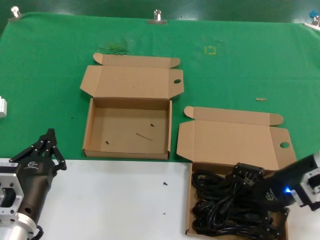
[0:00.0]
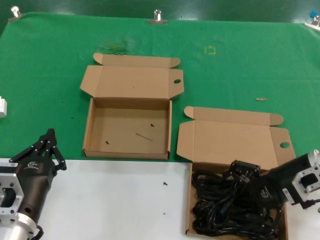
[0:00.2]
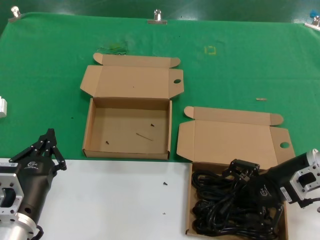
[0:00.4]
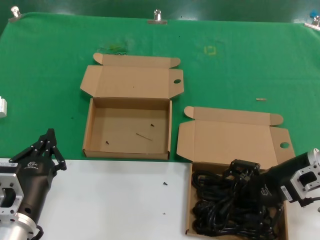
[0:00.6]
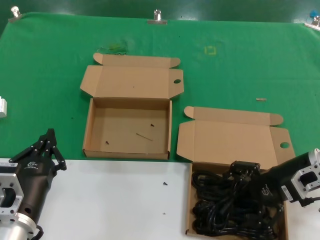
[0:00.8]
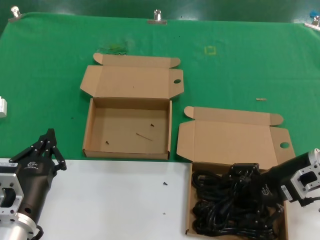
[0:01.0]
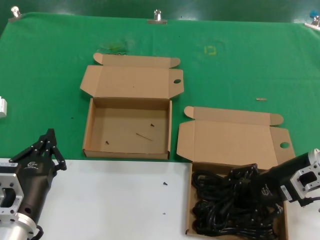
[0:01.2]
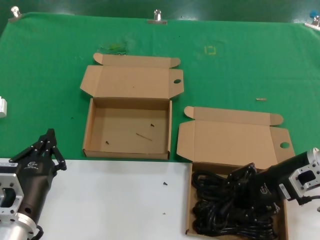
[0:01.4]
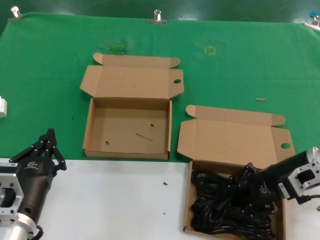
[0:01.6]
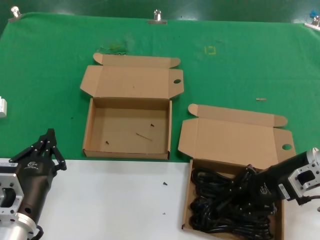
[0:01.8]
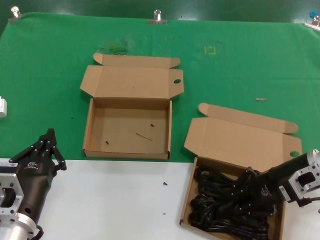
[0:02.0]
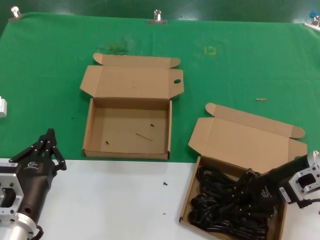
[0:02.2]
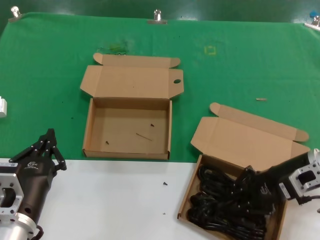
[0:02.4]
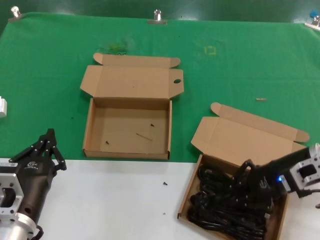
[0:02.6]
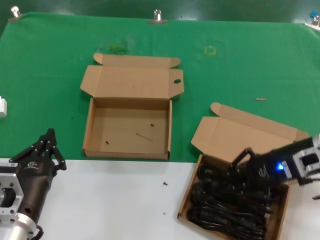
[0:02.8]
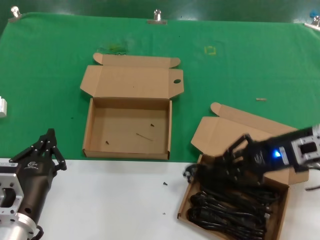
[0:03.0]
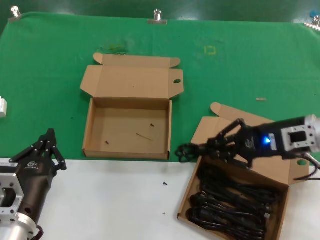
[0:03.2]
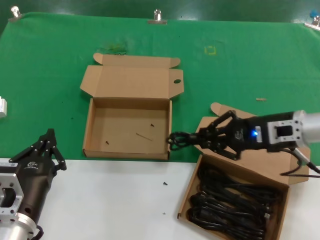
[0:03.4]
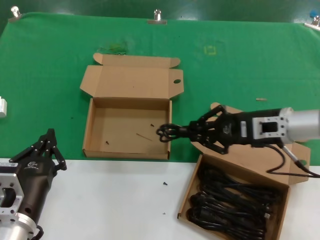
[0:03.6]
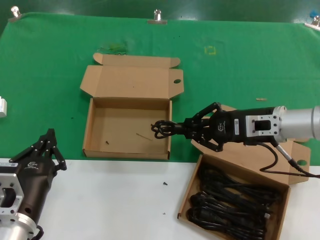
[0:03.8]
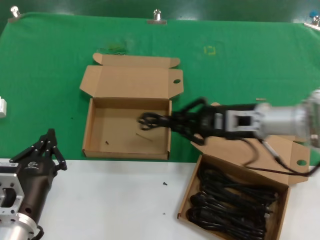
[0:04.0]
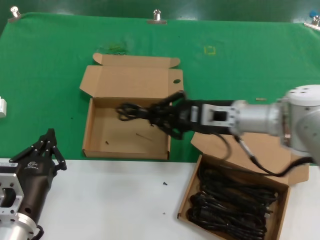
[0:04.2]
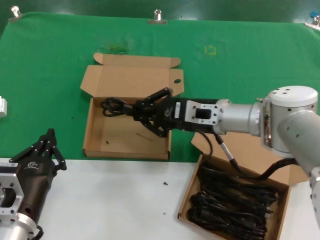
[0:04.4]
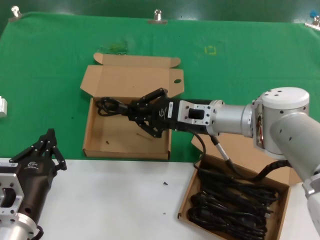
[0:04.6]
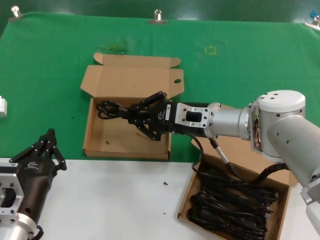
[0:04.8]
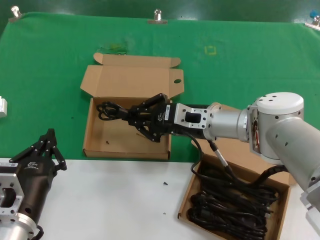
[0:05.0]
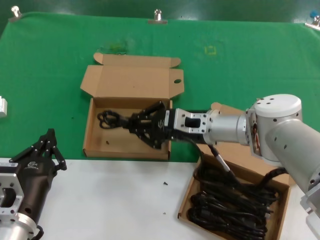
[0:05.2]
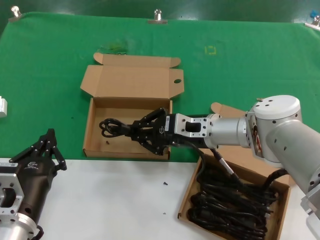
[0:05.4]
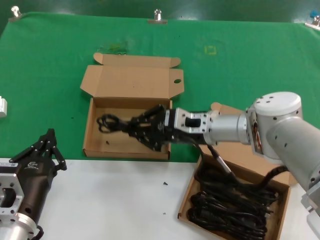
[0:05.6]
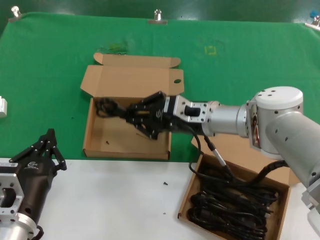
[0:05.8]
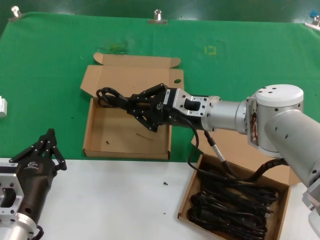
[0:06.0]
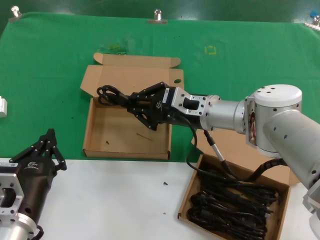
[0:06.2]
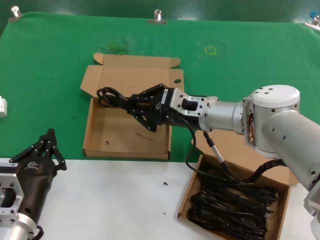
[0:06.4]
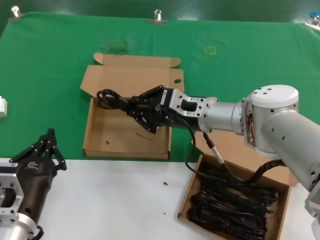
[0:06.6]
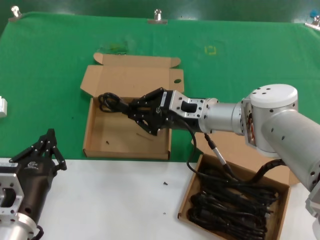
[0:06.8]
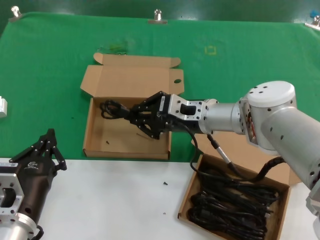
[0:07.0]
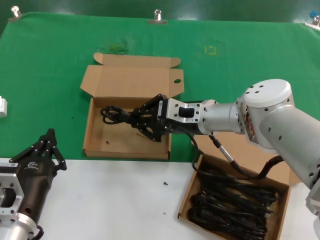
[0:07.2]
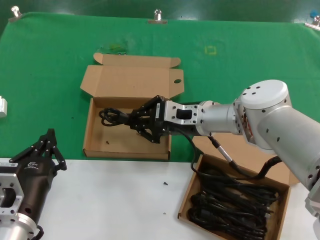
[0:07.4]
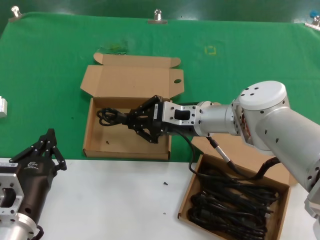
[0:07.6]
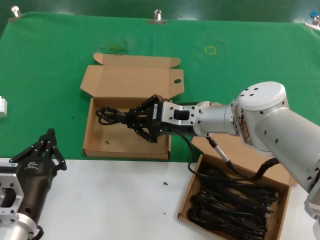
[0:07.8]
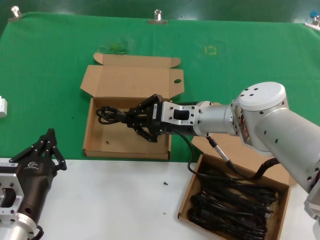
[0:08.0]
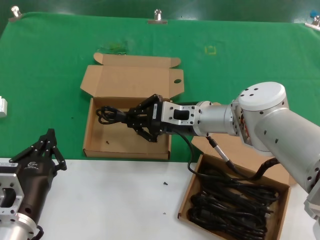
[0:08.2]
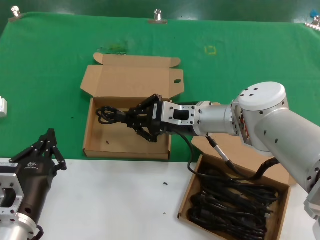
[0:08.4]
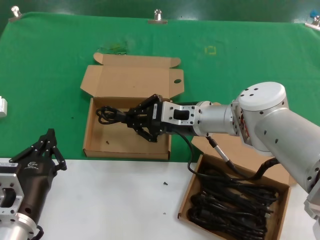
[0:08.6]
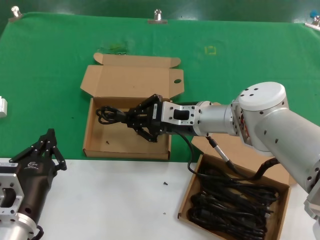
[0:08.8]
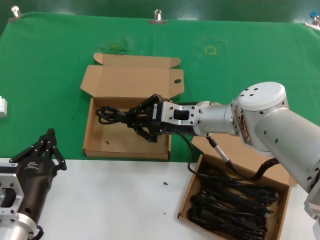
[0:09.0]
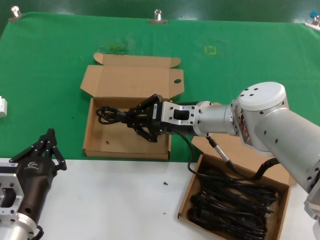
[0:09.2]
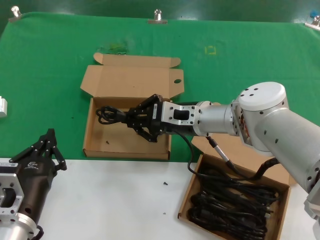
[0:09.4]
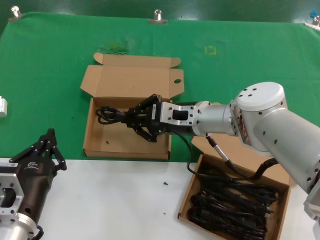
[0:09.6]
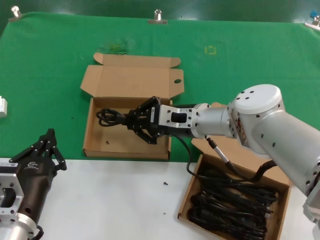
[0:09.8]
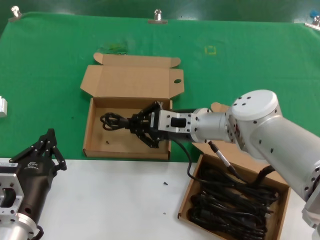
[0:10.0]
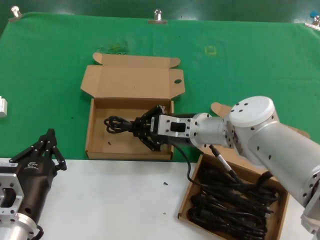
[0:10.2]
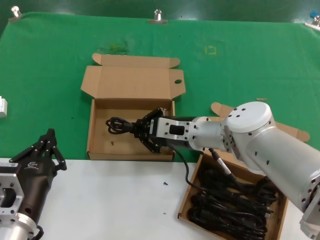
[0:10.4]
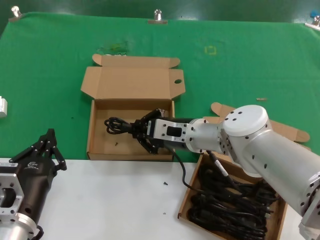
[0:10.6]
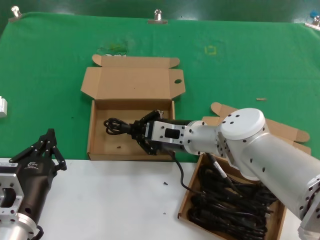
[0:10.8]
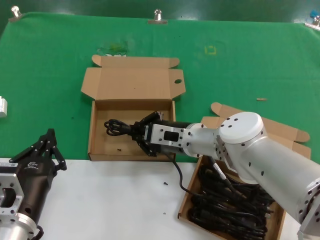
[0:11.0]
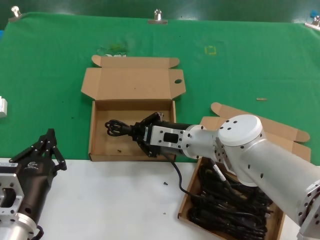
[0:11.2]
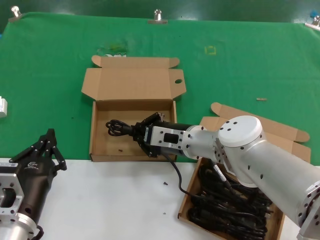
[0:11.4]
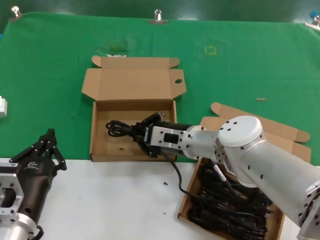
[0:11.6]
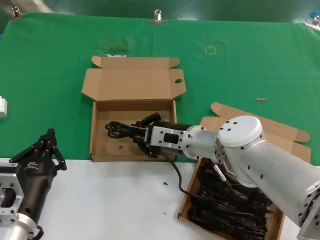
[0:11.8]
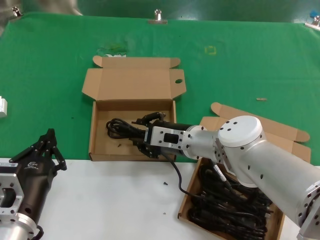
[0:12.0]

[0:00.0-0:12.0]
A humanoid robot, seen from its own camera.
Task of the whole recording: take the parts from the box containing them and put them into an empty box.
Step, 1.8 to 11.8 s: Place the data cable in the another box.
0.0 to 3.0 s: The hands stay close to where they were, moving slightly.
3.0 to 4.4 s: The right hand shifts roughly 20 cm to the left.
4.4 to 7.6 s: The hands make only small movements.
7.6 to 9.0 s: Both hands stay put.
9.0 to 10.4 s: The hands stay close to where they were, moving slightly.
10.4 to 12.0 s: The hands stay close to where they were, moving slightly.

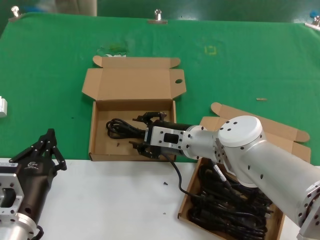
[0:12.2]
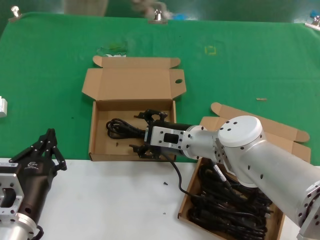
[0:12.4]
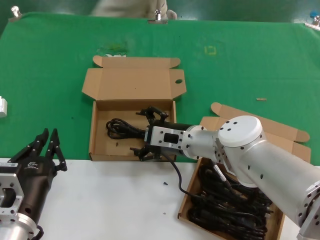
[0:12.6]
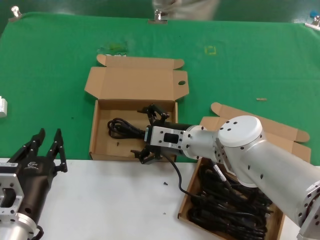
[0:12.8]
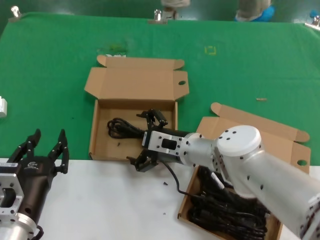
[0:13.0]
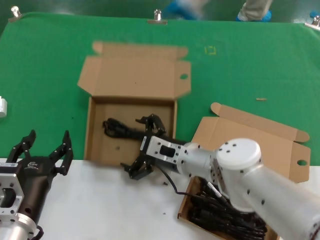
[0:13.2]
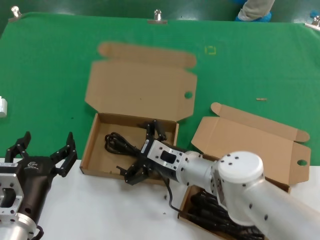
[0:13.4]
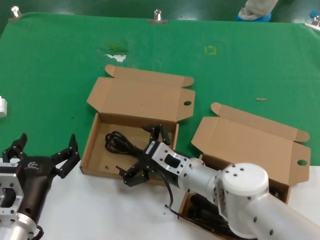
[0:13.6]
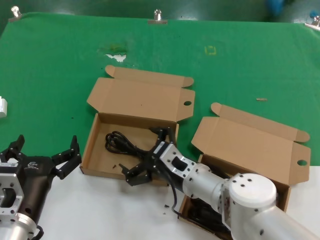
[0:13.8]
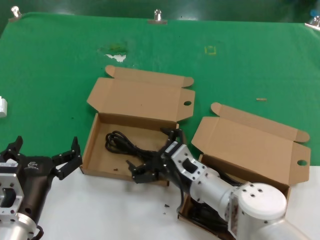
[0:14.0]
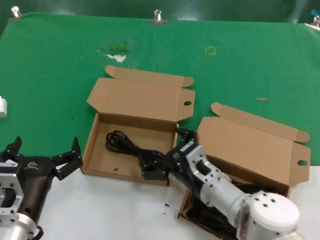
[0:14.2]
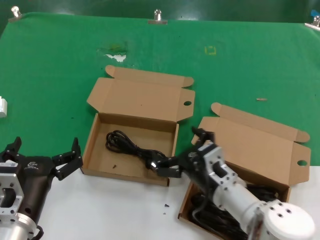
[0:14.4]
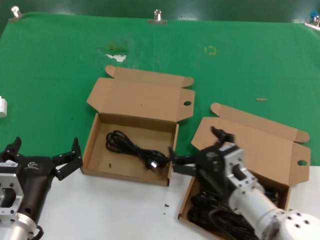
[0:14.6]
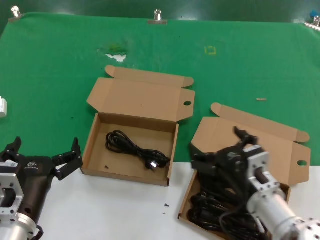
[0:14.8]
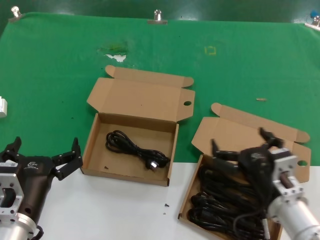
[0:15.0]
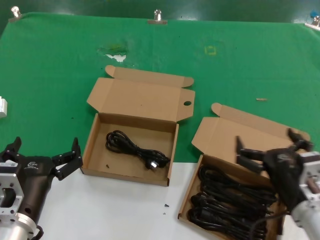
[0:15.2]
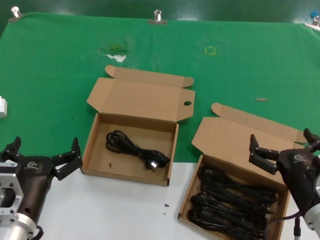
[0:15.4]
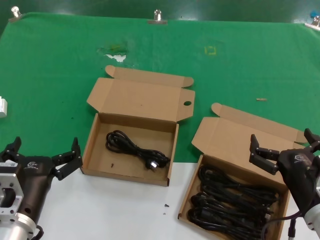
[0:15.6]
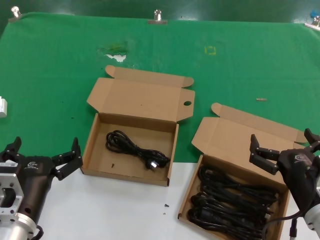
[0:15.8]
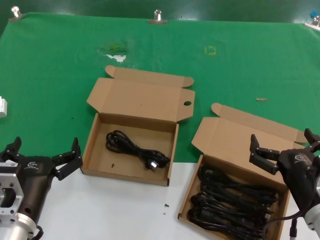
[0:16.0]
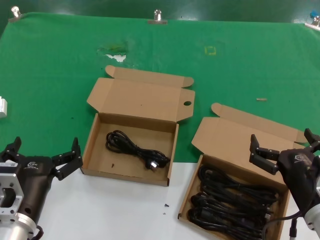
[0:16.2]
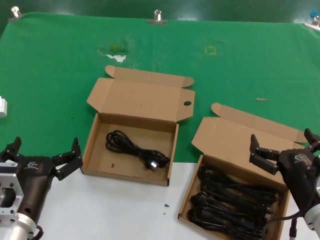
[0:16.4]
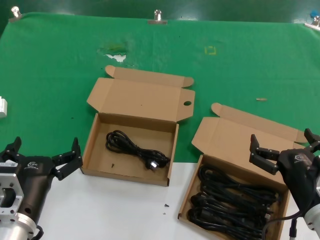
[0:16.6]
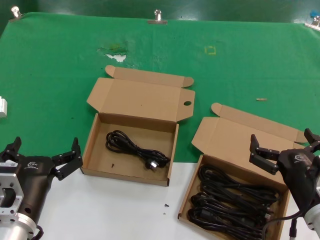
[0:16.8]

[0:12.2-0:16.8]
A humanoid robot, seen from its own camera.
Task of the whole recording: take the parts from the box containing them and put them into an empty box.
12.2 to 13.8 s: The right hand is displaced backward and downward by about 10 cm.
13.8 to 15.2 s: The right hand shifts roughly 20 cm to the right and backward.
15.2 to 16.8 s: There are only small adjustments of the hands.

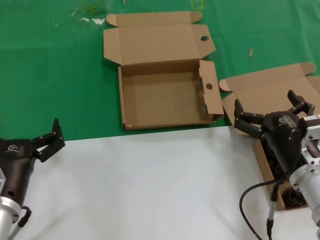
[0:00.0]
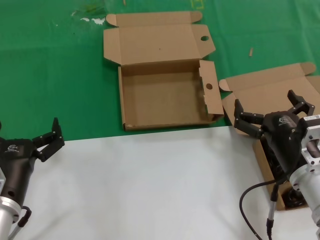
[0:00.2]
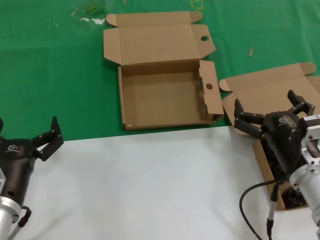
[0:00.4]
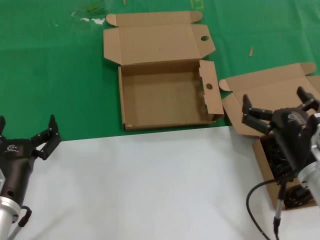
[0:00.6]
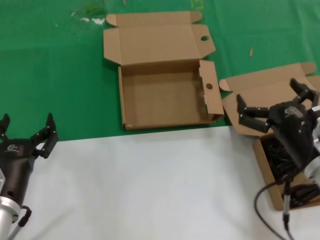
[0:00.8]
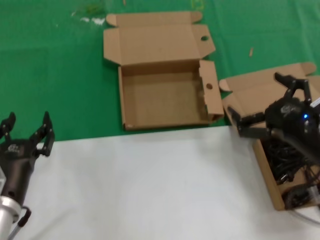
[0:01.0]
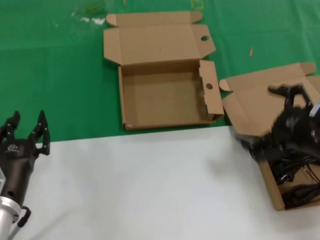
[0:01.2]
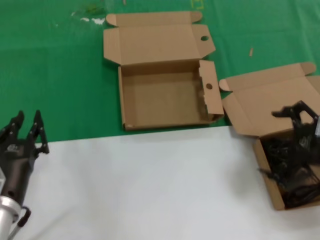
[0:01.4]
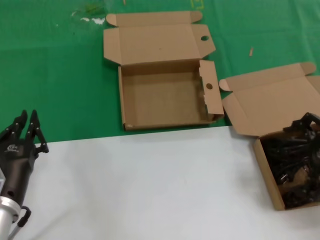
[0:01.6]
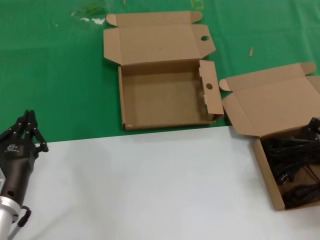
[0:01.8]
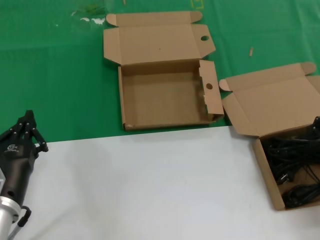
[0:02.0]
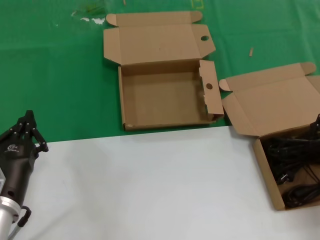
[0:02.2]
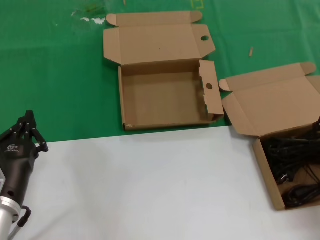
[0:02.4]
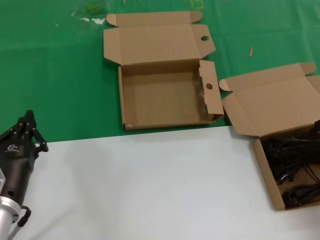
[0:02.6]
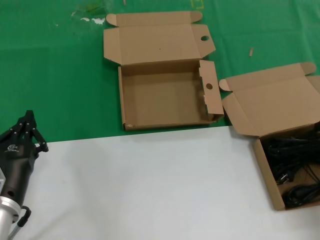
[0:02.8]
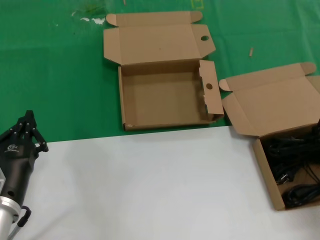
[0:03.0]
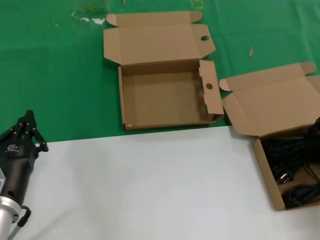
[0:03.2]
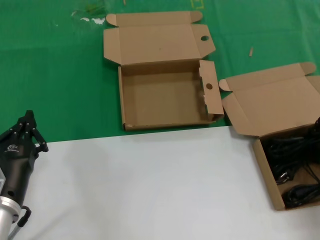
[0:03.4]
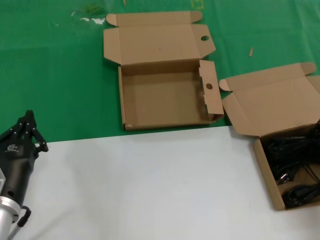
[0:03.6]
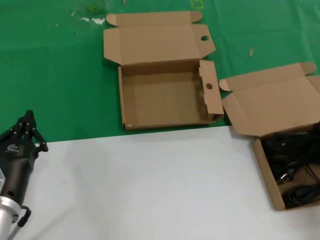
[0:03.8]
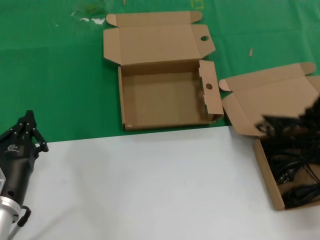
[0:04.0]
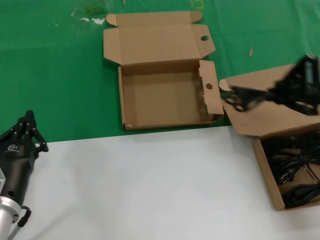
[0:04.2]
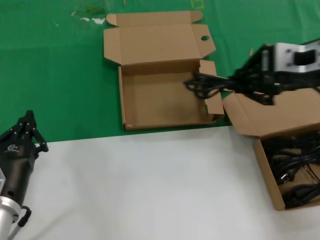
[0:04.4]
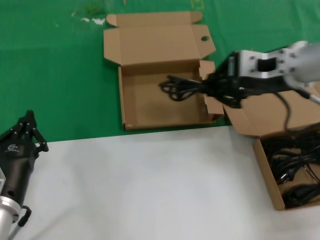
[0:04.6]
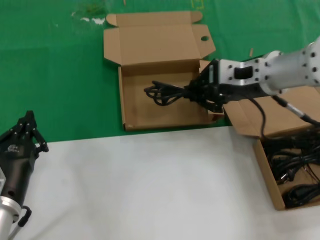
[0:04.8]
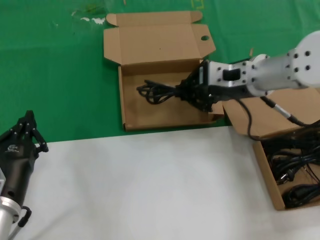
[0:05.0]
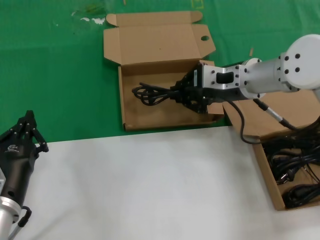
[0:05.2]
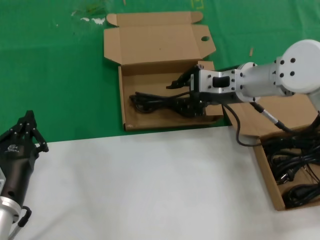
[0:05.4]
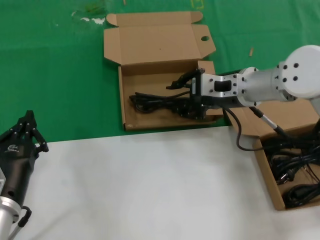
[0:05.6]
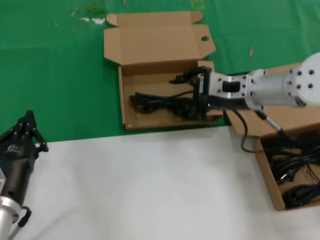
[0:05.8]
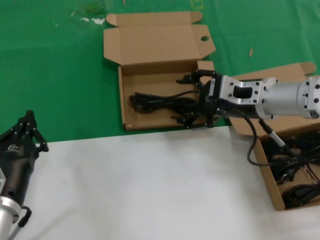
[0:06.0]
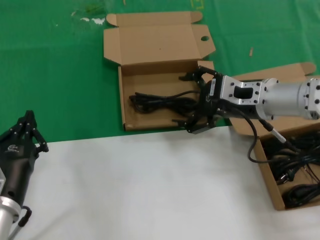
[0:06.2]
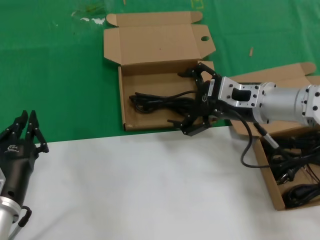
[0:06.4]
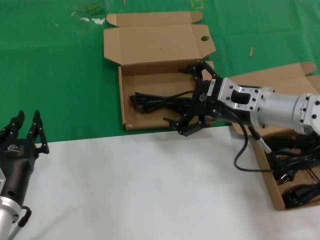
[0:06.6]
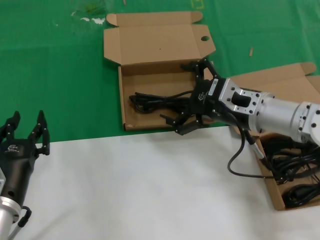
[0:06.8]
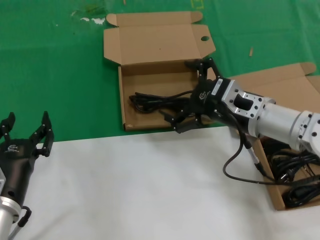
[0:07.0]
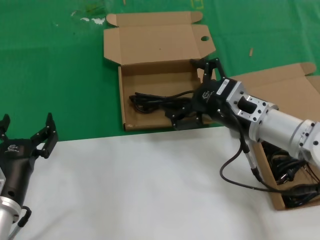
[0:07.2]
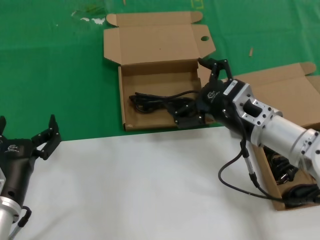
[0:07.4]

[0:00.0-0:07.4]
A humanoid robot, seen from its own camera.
Task of the whole recording: take the parts from the box containing them and put them into an empty box.
Step, 0.0 to 3.2 s: Grasp the data cable.
Step, 3.4 to 5.6 s: Place the data cable in the another box.
0.0 to 1.4 s: The right hand is displaced upward and to the right by about 15 cm.
1.4 to 3.0 s: The right hand is displaced forward and to the right by approximately 10 cm.
3.0 to 4.4 s: The right hand heads to the left and upward, covering roughly 15 cm.
4.4 to 6.0 s: The right hand travels downward, to the left and forward by roughly 15 cm.
6.0 to 7.4 s: The right hand moves downward and backward, about 10 cm.
